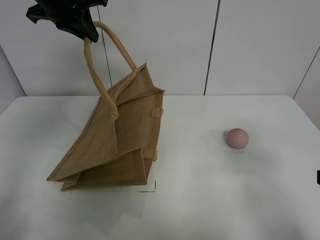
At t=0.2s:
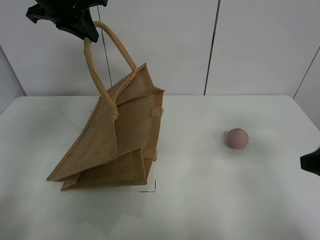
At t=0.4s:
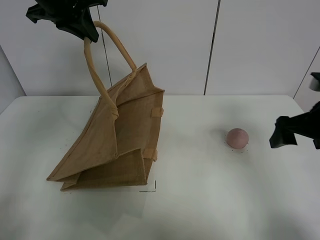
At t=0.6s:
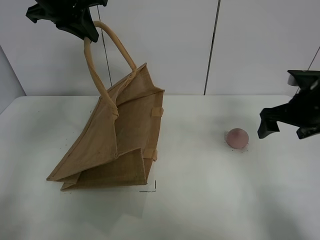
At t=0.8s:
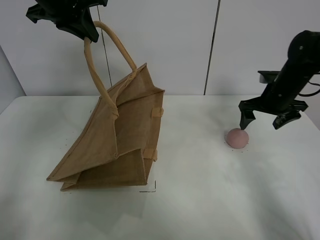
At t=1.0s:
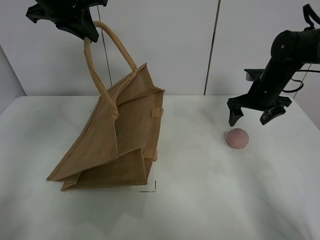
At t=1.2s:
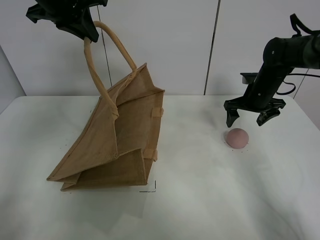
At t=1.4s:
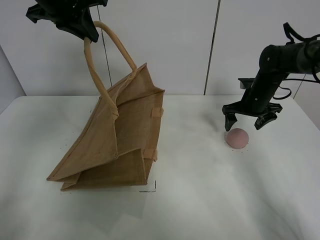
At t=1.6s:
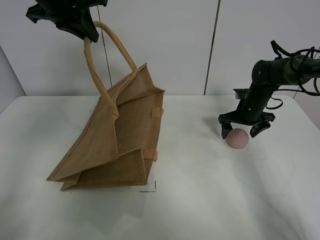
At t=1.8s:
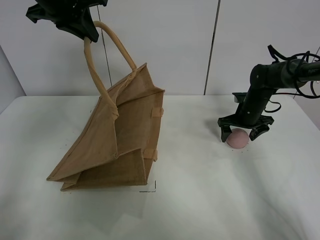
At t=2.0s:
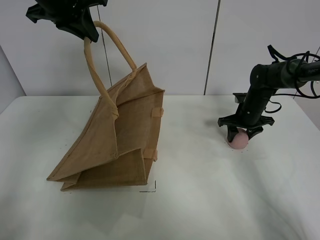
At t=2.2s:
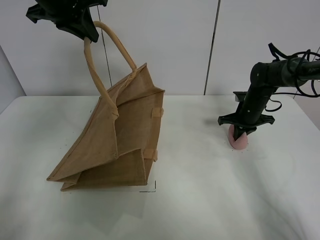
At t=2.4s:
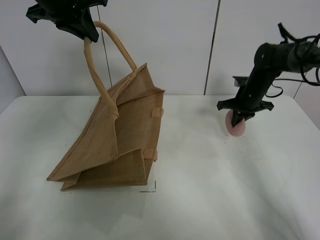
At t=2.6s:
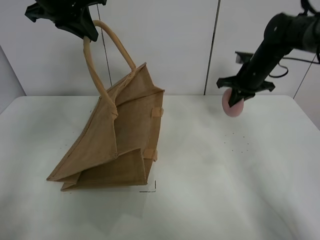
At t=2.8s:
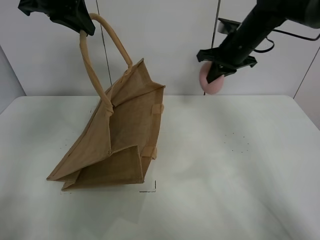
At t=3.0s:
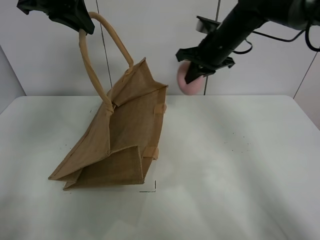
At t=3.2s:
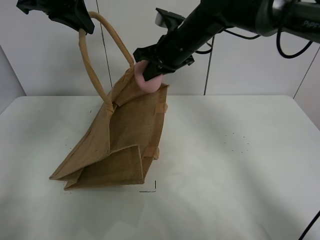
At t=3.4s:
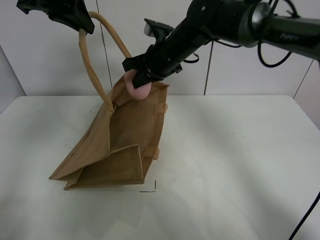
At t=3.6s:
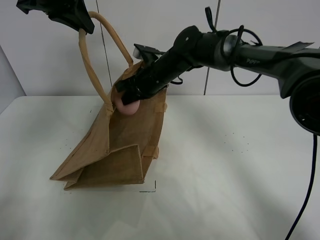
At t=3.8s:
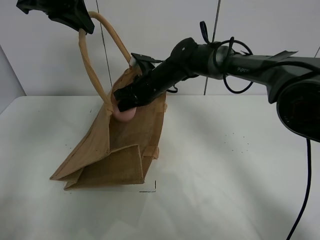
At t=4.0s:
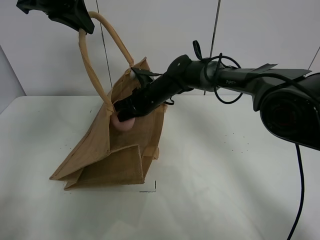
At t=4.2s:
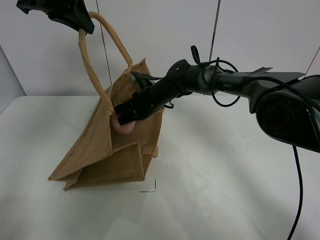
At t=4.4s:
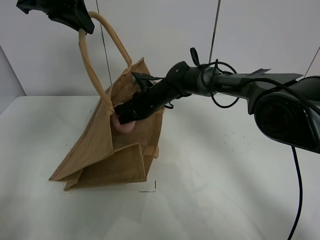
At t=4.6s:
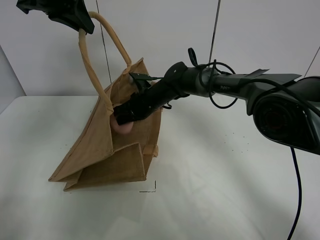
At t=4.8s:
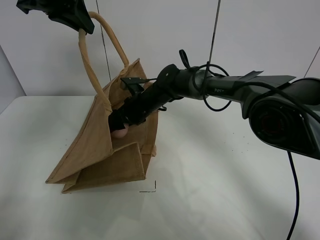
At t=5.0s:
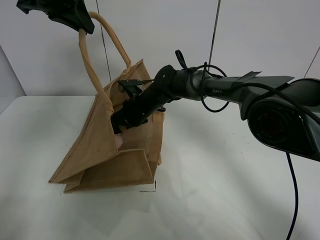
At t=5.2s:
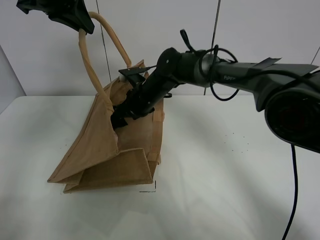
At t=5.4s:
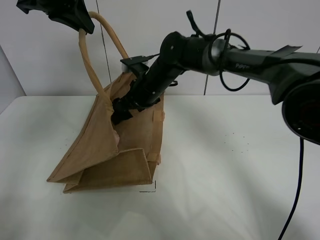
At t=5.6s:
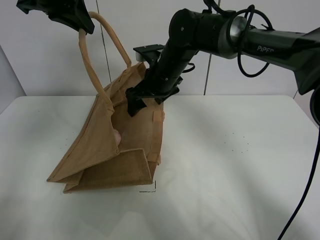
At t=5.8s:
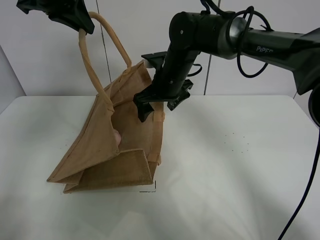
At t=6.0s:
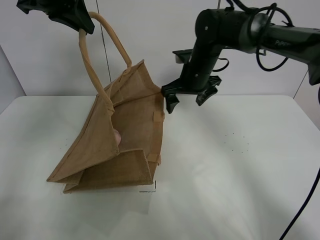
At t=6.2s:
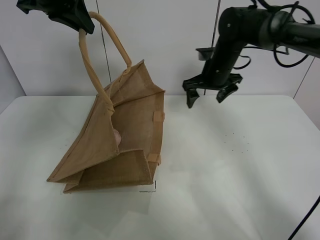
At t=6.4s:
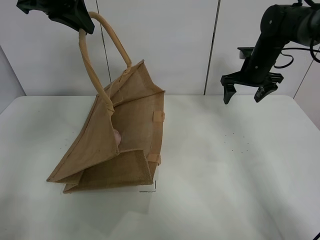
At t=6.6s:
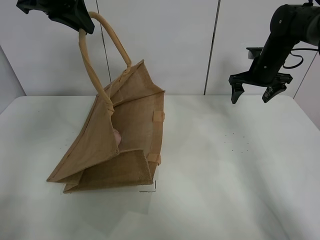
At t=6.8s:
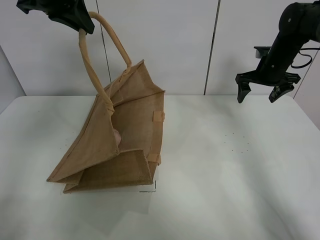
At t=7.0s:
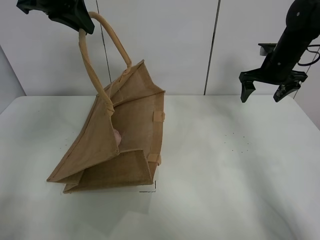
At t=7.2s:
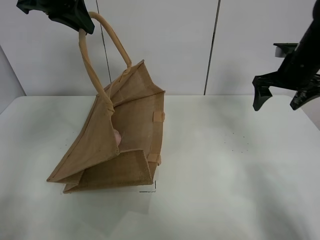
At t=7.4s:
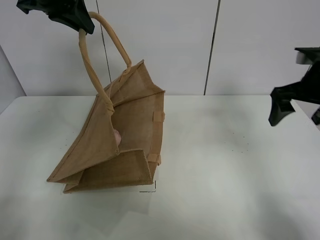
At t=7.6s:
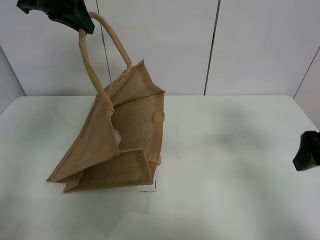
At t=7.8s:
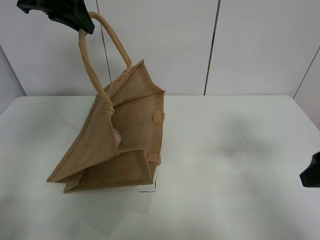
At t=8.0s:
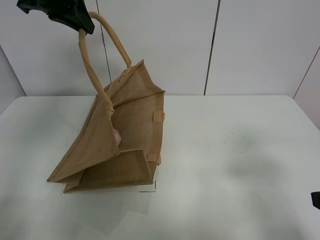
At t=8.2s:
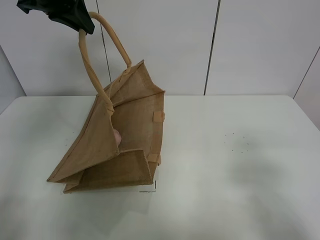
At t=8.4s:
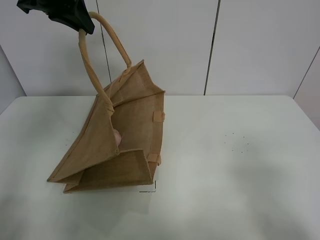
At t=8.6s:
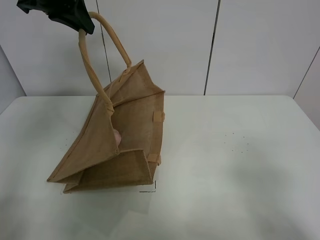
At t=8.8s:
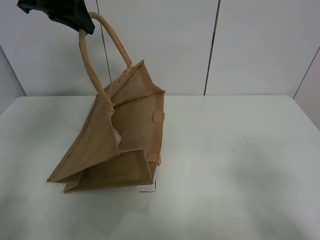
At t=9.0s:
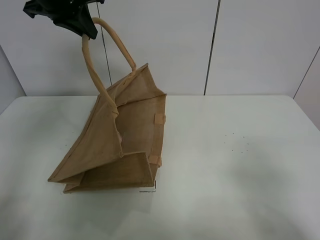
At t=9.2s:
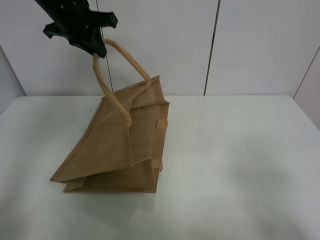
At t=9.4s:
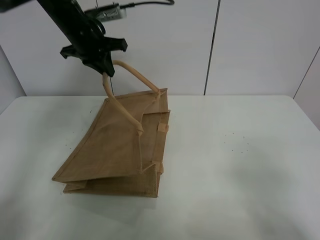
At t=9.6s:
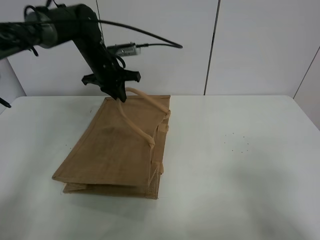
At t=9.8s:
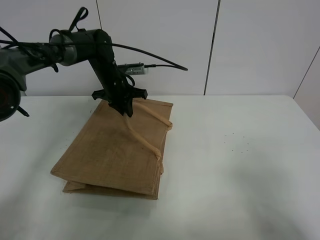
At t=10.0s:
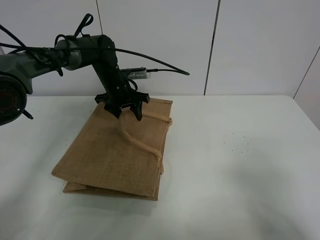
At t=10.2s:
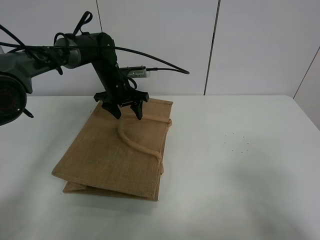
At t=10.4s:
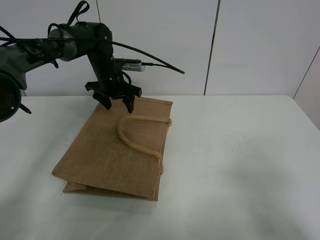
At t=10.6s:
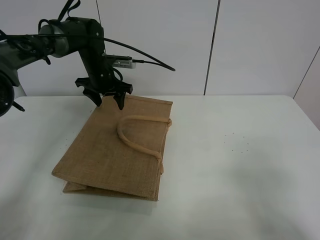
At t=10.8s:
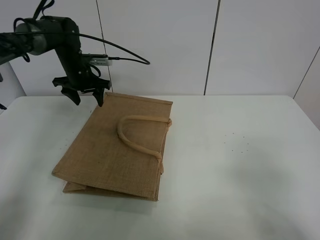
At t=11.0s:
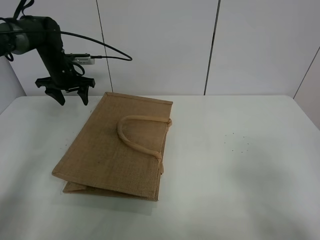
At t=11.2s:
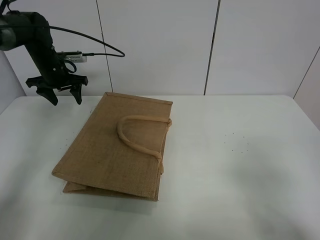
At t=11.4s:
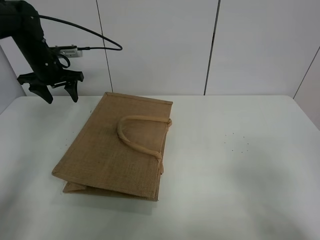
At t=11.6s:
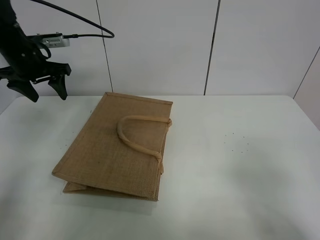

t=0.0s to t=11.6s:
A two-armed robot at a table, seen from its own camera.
Task of the whole recording: open the brown linen bag and put the peach in the bag.
Step, t=0.0s to t=2.0s: Grasp the peach with right gripper.
Step, t=2.2s to t=6.0s: Place the peach in the handbag with right gripper.
Step, t=6.2s to t=10.8s: Put down the handbag with left grippe.
t=0.0s to t=1.4s: The right gripper moves forward, about 35 cm.
t=1.4s to t=2.8s: The right gripper moves upward and to the left, approximately 15 cm, and closes up.
t=2.8s to t=4.4s: The right gripper is displaced to the left and downward by approximately 25 cm.
t=4.4s to t=5.8s: The right gripper travels upward by about 10 cm, and opens its fingers.
t=5.8s to t=7.2s: The right gripper is displaced to the right by about 25 cm.
t=7.2s to t=8.8s: The right gripper heads backward, covering some 35 cm.
t=8.8s to t=10.2s: The left gripper shifts roughly 25 cm downward and forward, and opens up.
t=10.2s to t=11.6s: The left gripper is displaced to the left, upward and backward by about 20 cm.

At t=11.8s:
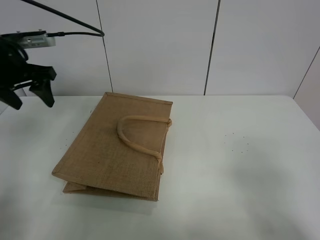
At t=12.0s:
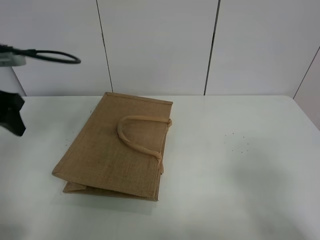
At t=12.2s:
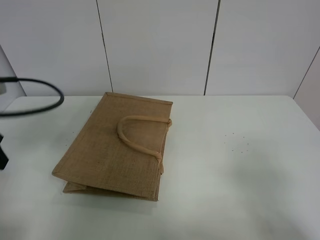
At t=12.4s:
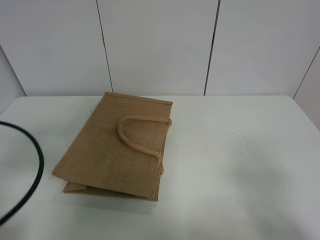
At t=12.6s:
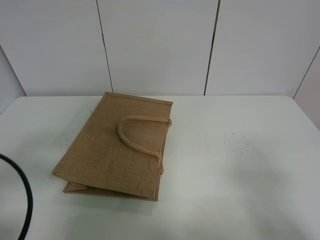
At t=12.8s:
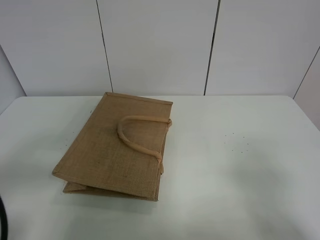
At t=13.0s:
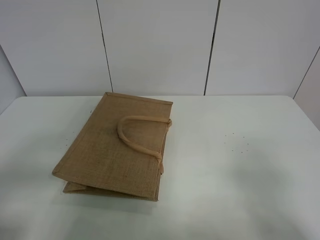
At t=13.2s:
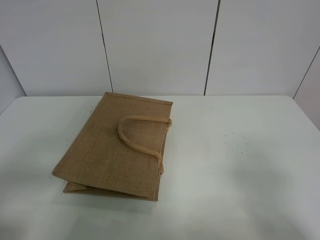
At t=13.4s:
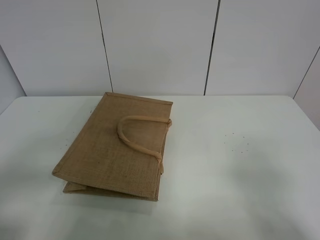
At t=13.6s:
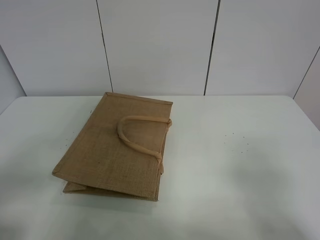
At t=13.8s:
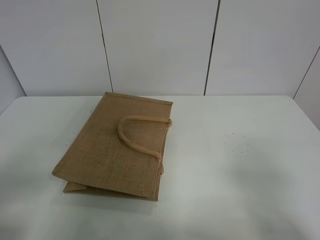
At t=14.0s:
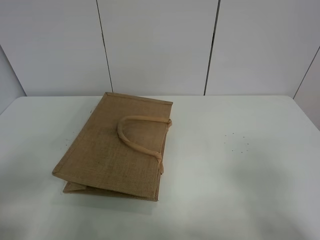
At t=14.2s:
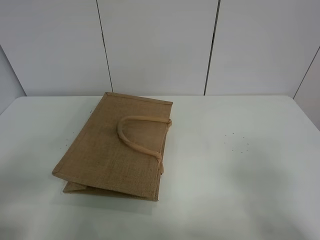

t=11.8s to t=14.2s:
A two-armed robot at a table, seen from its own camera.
Task of the whole recording: open the brown linen bag and put the peach in the bag.
t=11.8s to t=13.0s: The left gripper is displaced backward by about 30 cm.
